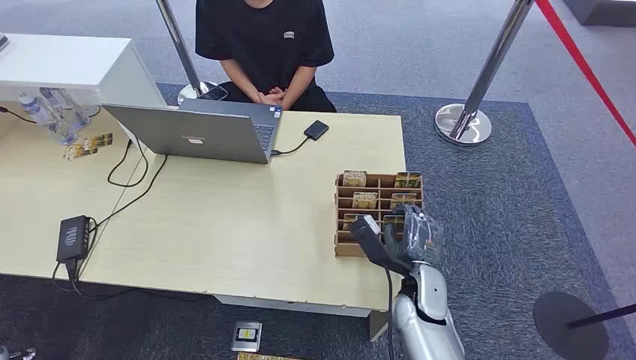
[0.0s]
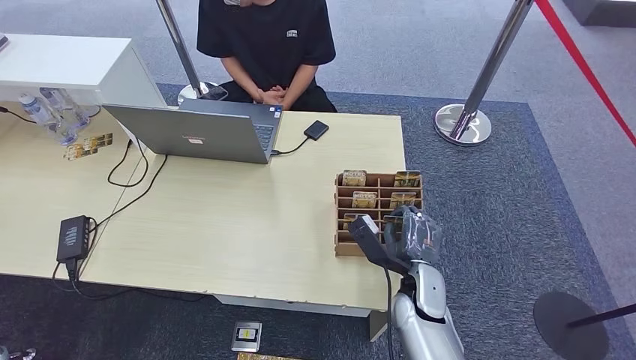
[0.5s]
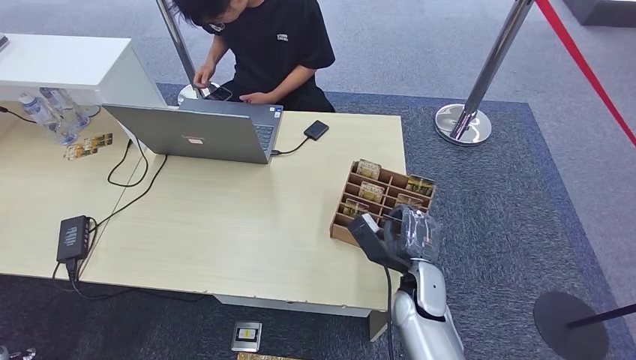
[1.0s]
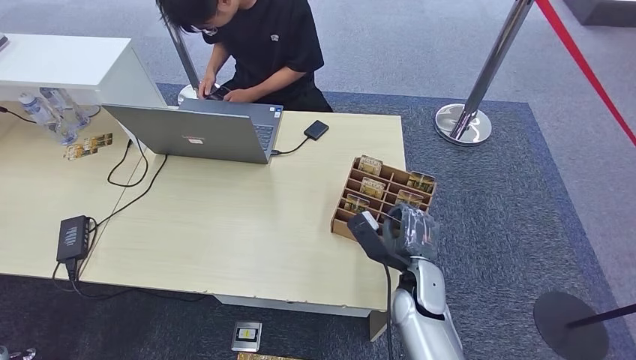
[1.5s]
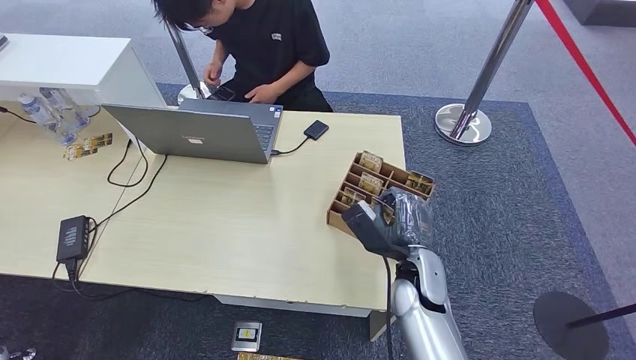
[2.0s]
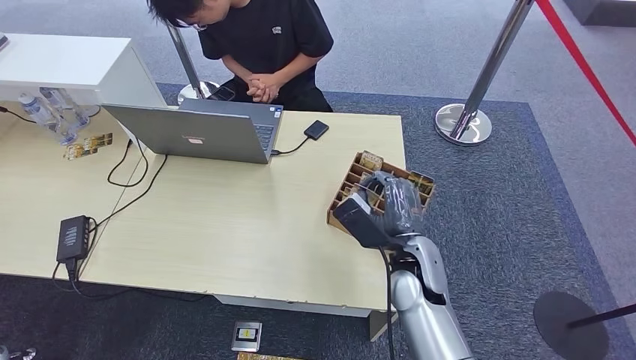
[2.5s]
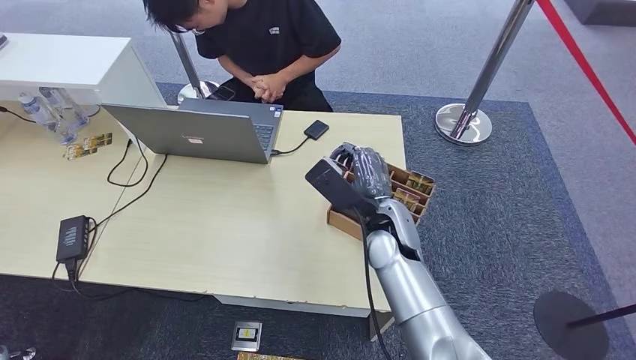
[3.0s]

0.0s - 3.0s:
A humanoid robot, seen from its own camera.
Task of the whole recording: Pick up the card and hand it over to the target person.
Step, 0.0s - 3.0s: Pick up the key card from the card box.
1.5s - 3.0s: The right hand travels to the left, upward and forward by approximately 15 cm.

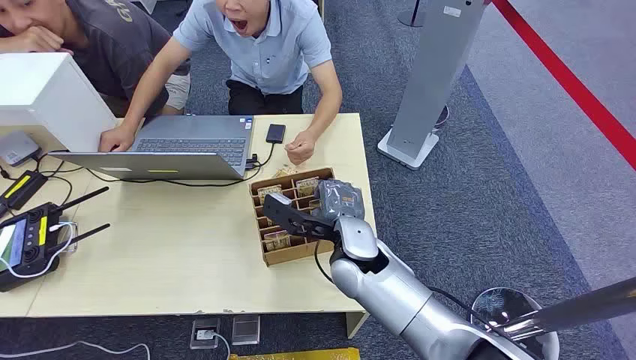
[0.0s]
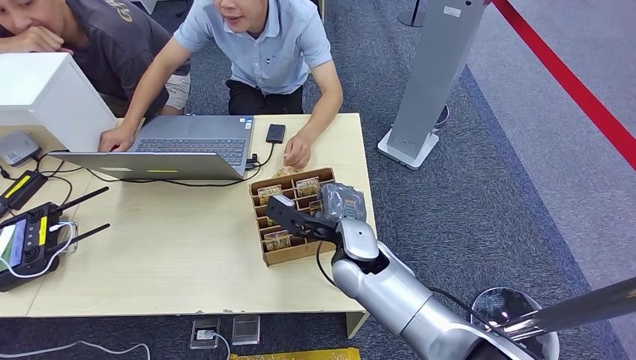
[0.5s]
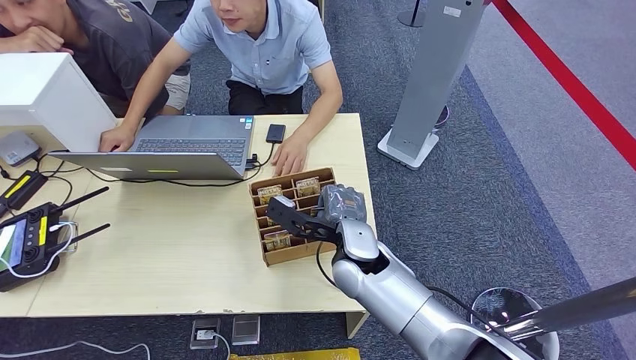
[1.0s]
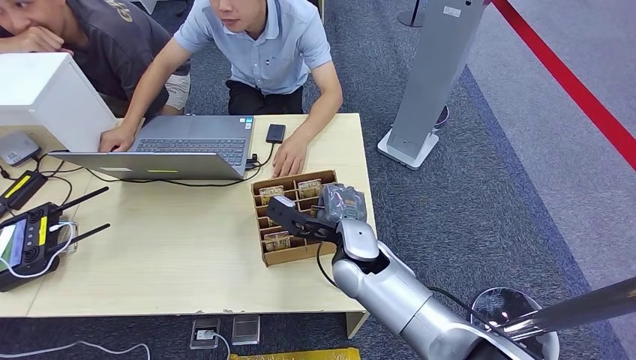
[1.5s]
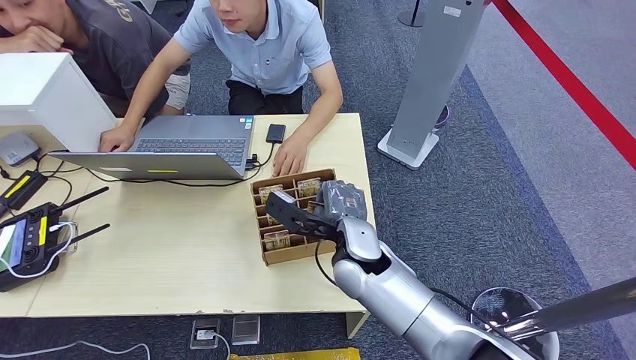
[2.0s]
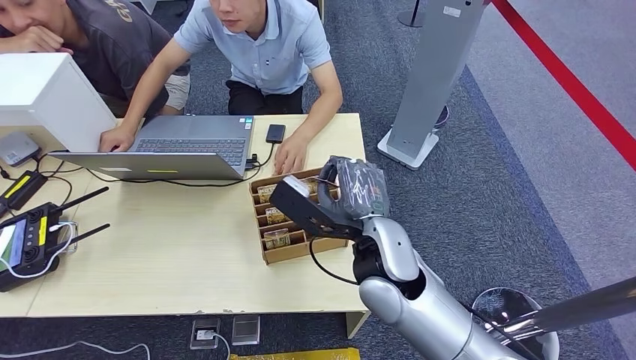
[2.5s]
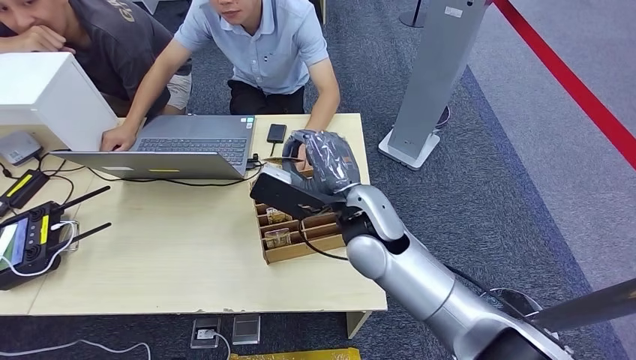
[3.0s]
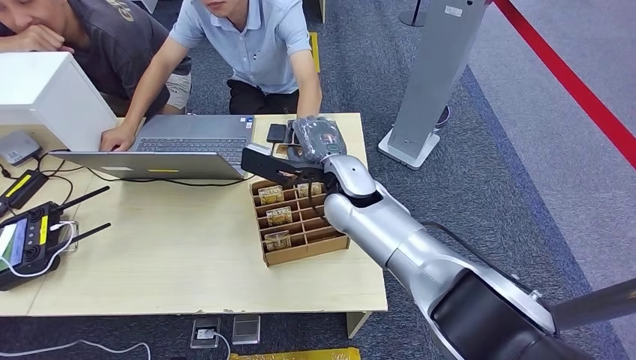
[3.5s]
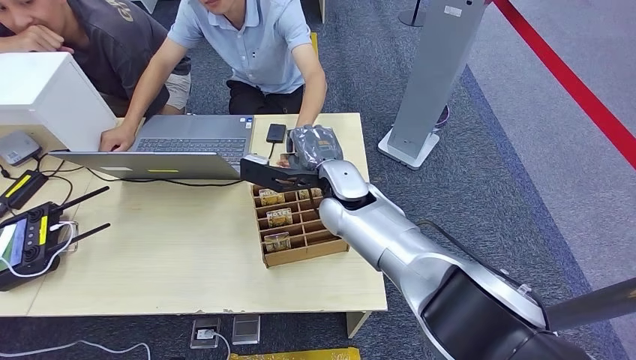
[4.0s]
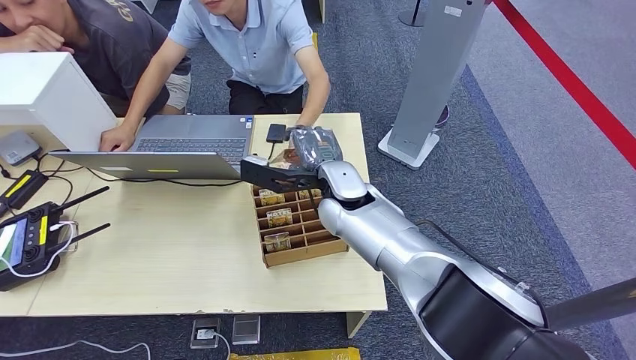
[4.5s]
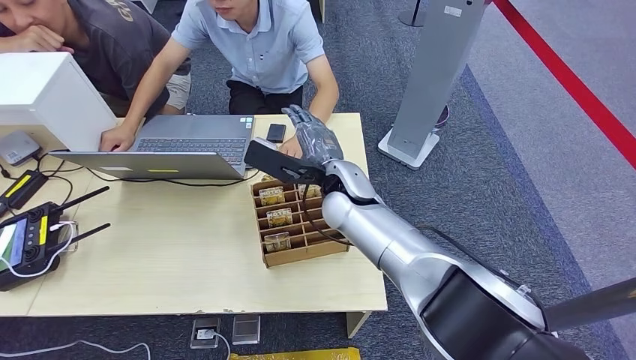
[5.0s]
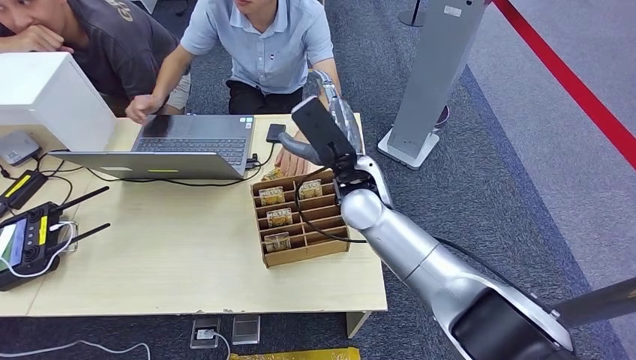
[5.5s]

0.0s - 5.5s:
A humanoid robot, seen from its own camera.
Task of the whole recording: Pick up the card and hand it over to the target person.
Step, 0.0s - 2.5s: Pick up the key card from the card box.
Step, 3.0s - 5.5s: Hand the key card to the target.
2.0s - 3.5s: The right hand shifts roughly 10 cm forward.
3.5s - 5.5s: The right hand goes approximately 15 cm backward, to the right and upward.
